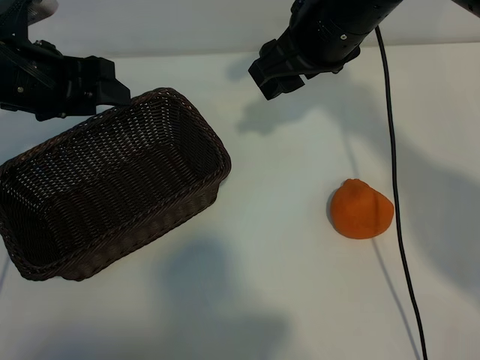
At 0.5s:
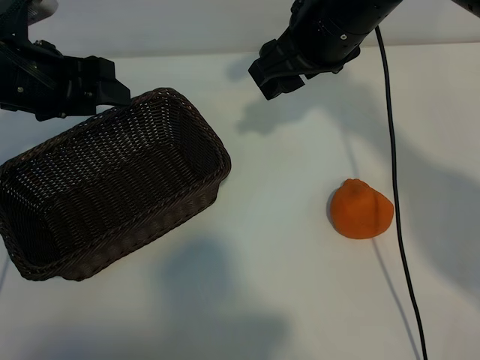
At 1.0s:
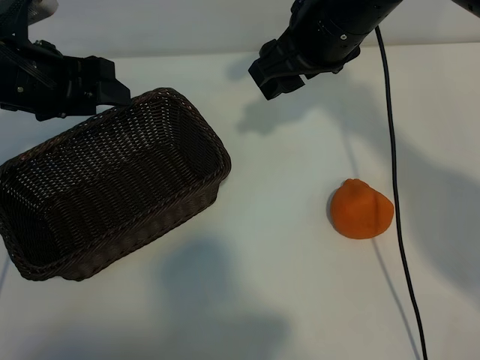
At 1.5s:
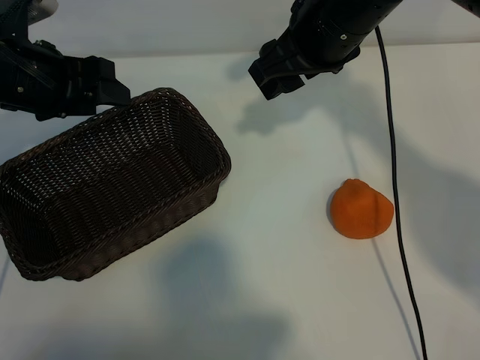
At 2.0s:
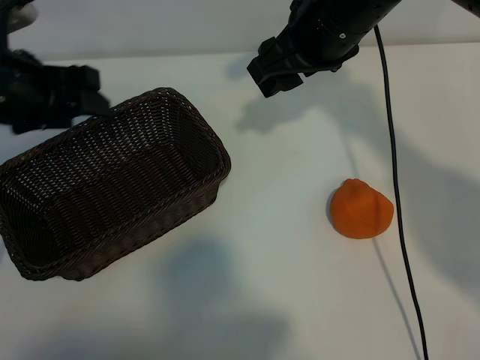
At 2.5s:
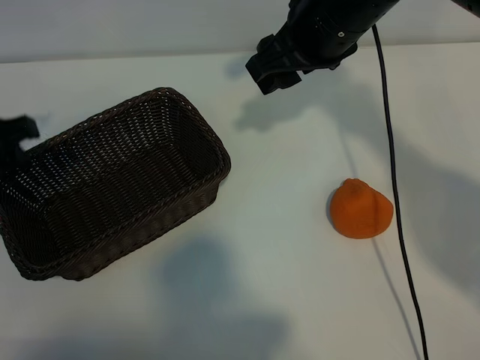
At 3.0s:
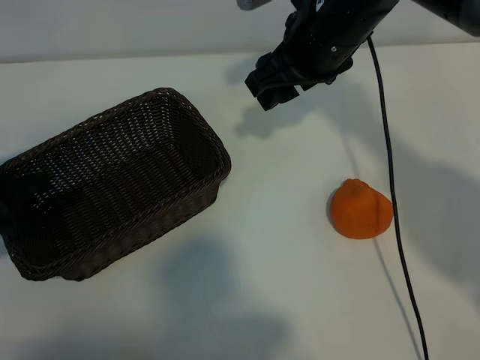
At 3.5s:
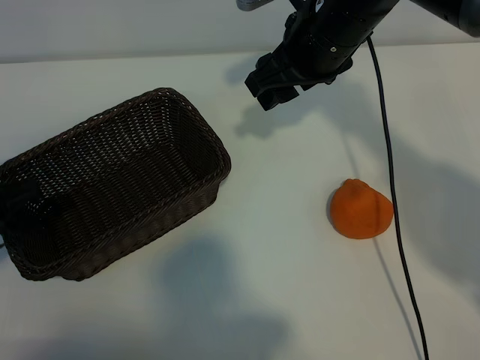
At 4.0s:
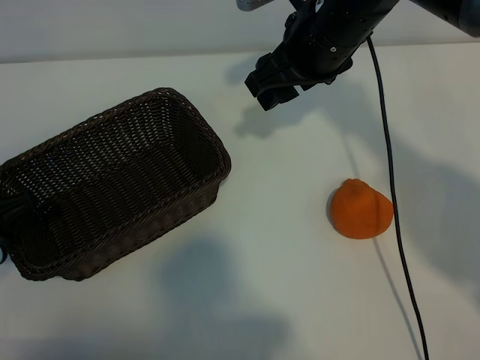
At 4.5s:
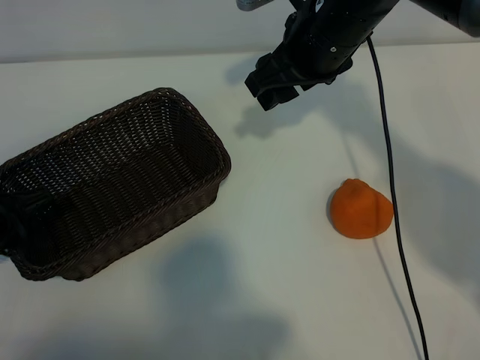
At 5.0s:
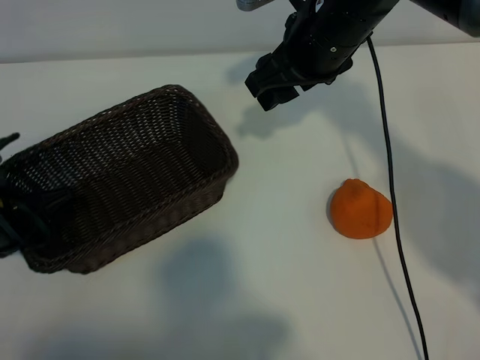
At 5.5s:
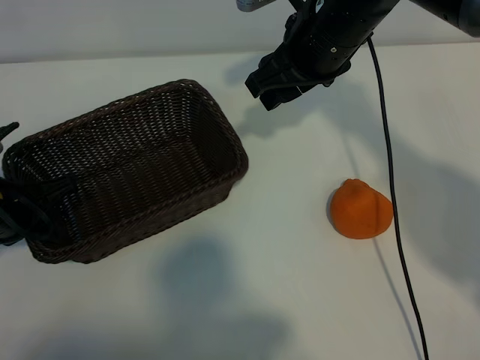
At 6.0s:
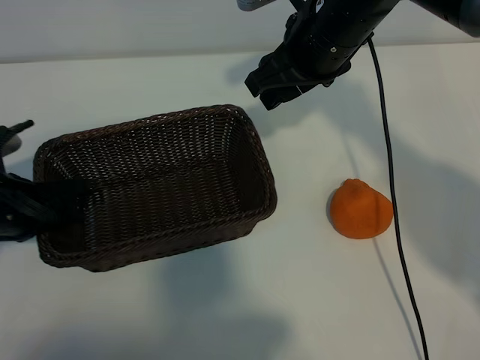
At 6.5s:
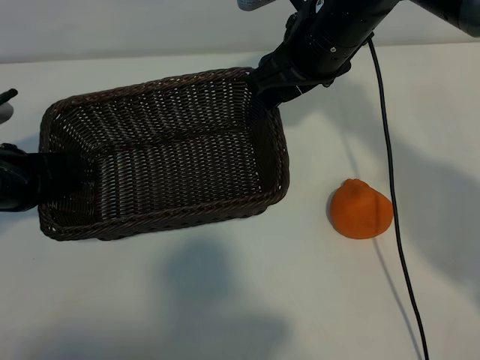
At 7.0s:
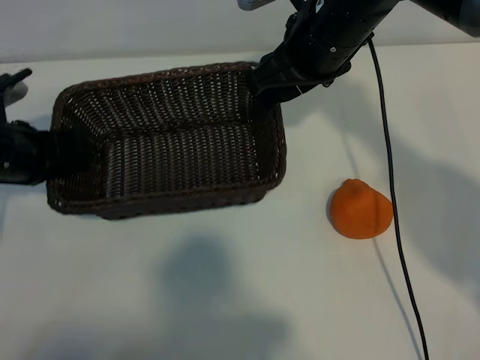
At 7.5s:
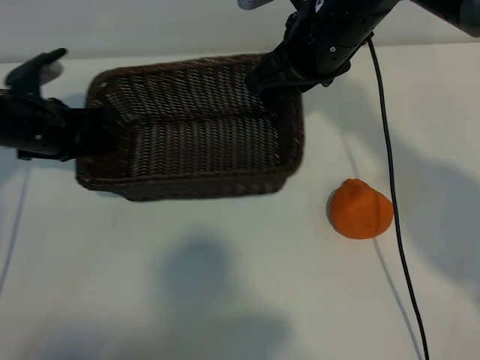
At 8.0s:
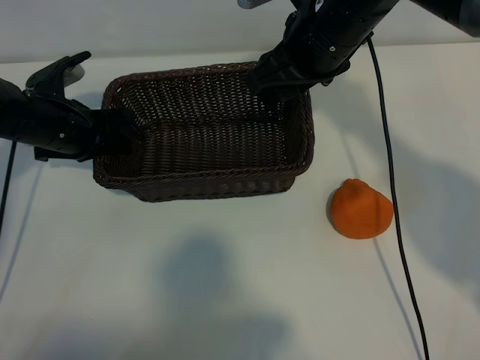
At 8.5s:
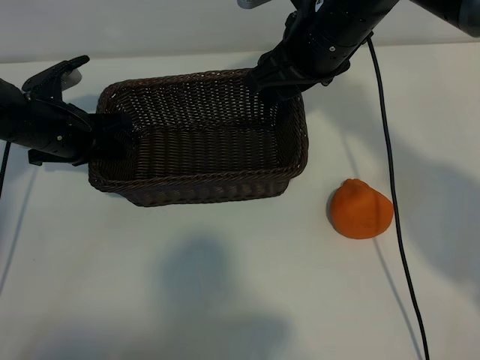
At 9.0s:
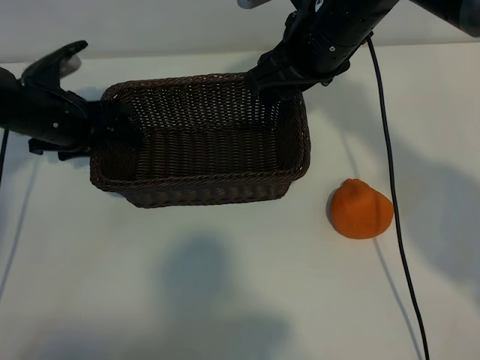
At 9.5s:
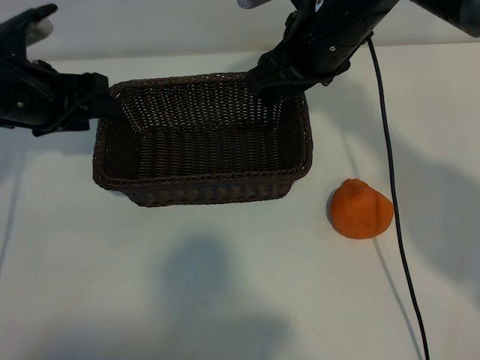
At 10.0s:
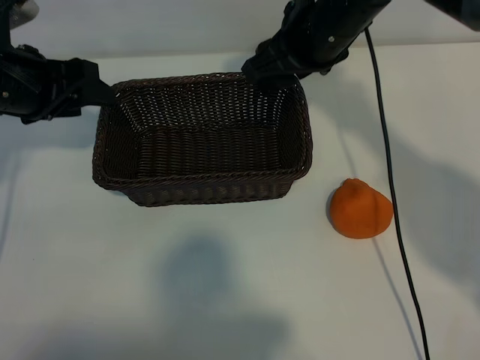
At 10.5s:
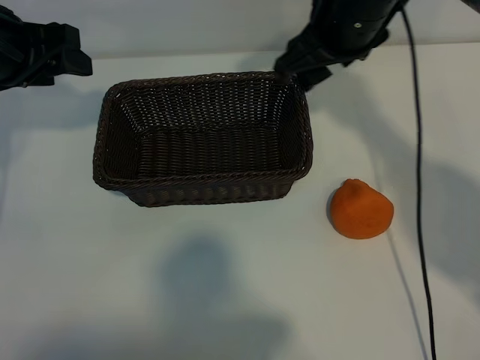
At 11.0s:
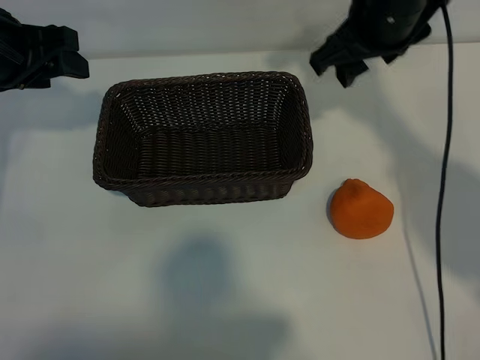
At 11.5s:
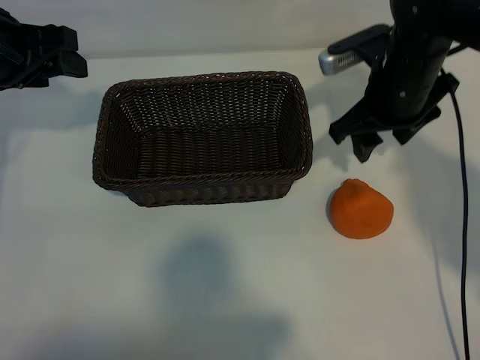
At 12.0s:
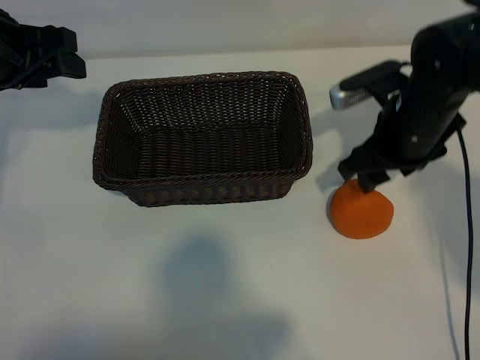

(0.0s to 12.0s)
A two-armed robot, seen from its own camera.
Task of the whole recording: pick up the orange and put it into the basket.
Step, 2.0s - 5.0s: Grasp the basket with left gripper.
Step, 5.5s - 8.5s: Place the basket in the center of view with left gripper.

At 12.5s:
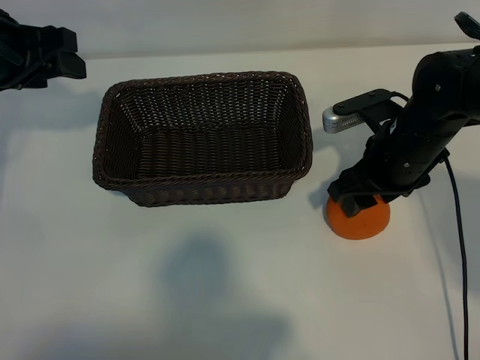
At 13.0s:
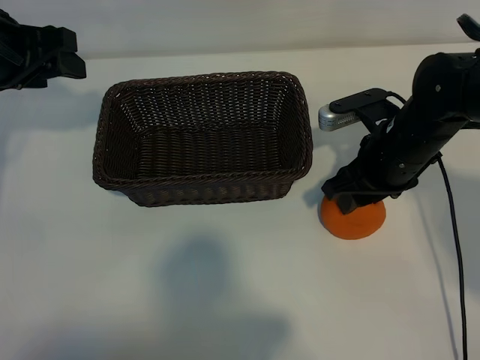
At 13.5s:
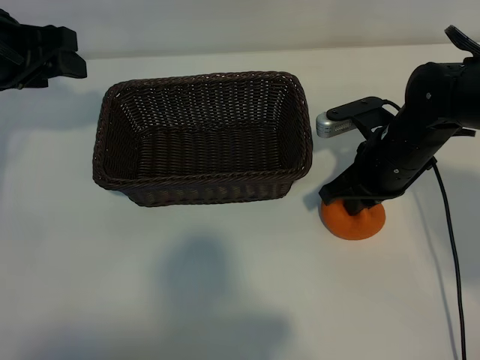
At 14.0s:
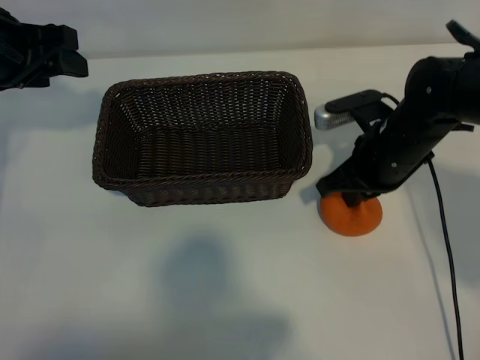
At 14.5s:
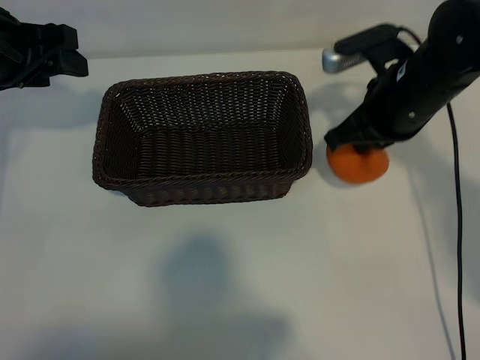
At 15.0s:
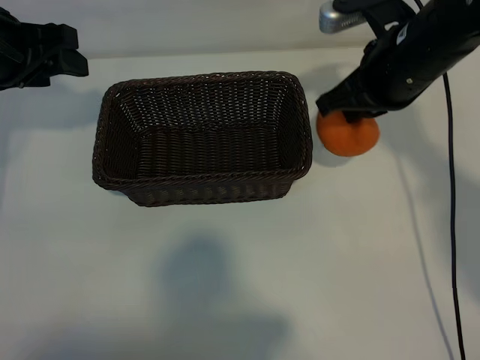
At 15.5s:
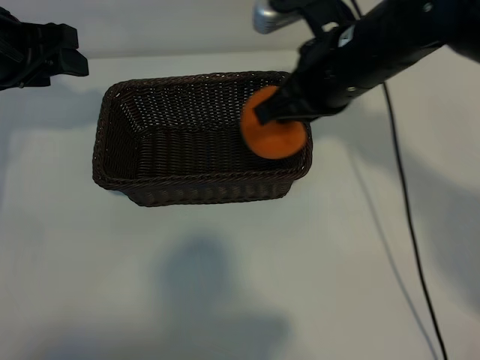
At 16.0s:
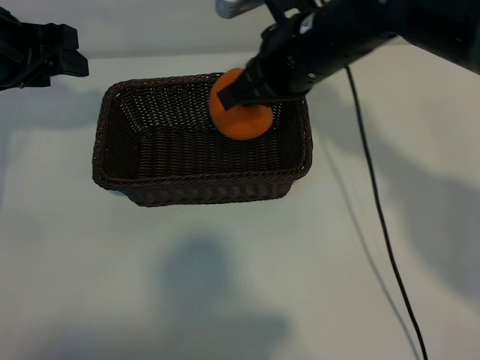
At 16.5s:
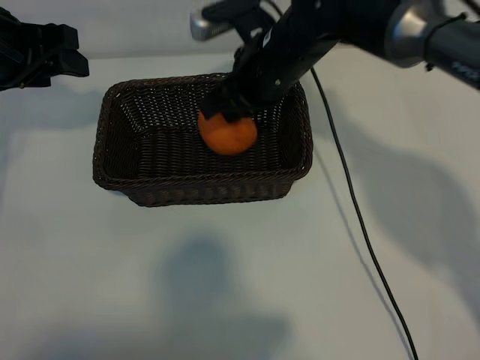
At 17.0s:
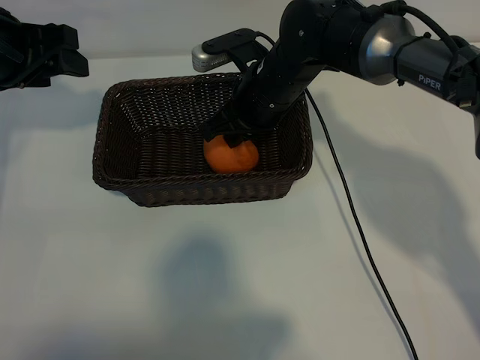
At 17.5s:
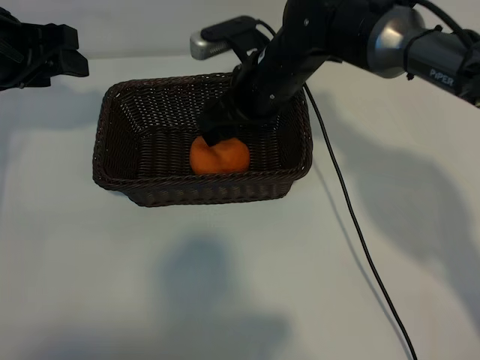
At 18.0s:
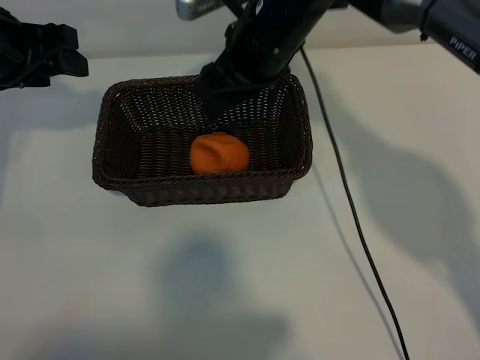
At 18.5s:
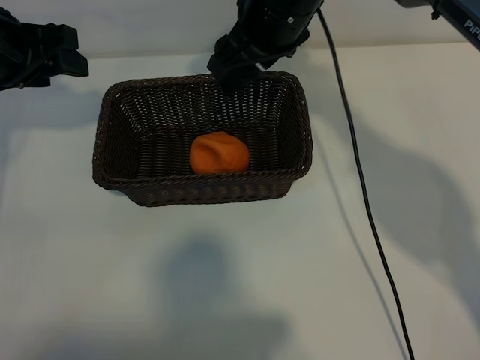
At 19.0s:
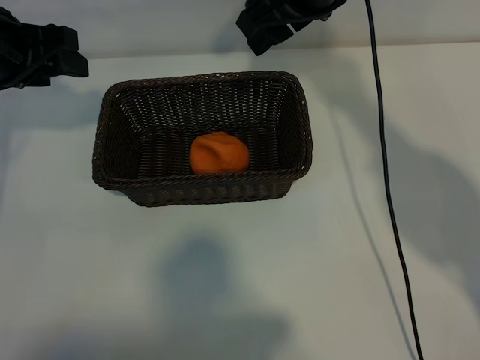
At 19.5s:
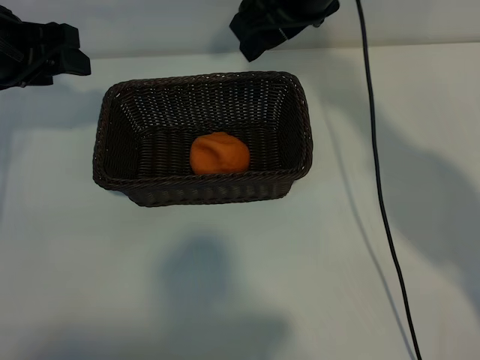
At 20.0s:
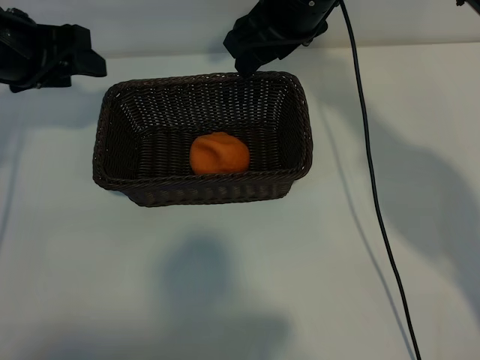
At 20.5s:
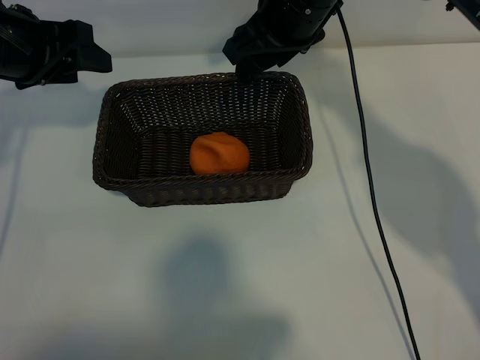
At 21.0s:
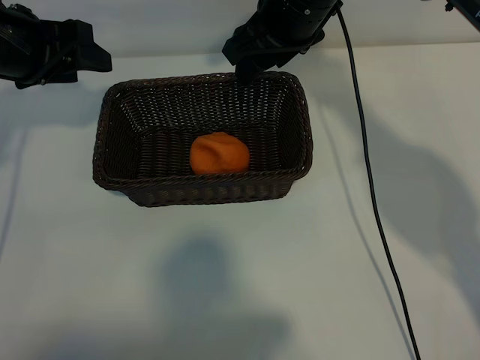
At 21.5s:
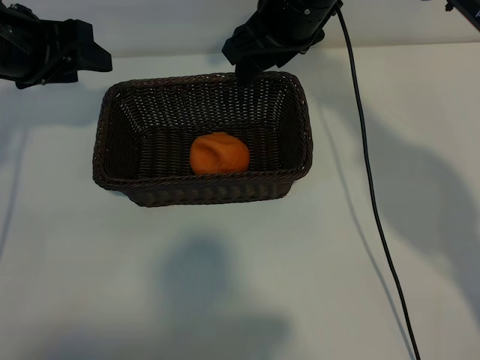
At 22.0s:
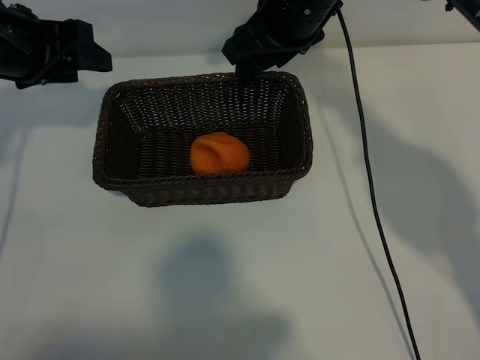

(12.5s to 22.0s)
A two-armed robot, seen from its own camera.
Task of the whole recording: pick up the orange and put it into the basket.
Step, 14.0s - 17.0s: Place the orange in the basket with right gripper.
